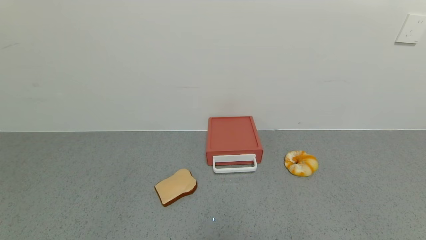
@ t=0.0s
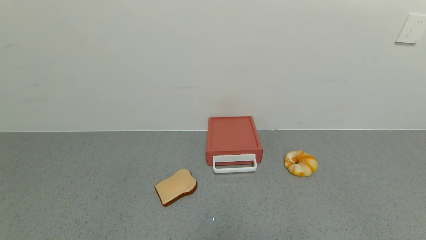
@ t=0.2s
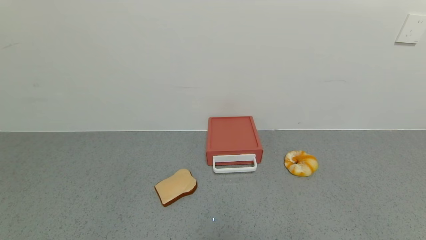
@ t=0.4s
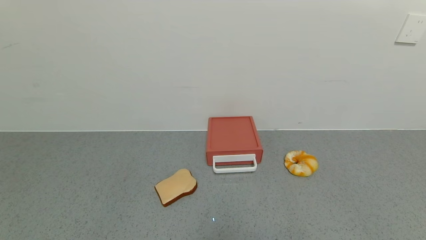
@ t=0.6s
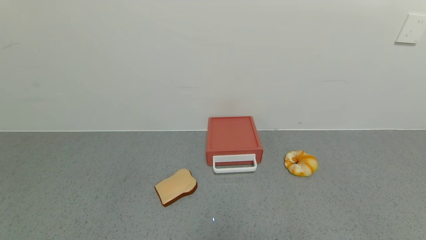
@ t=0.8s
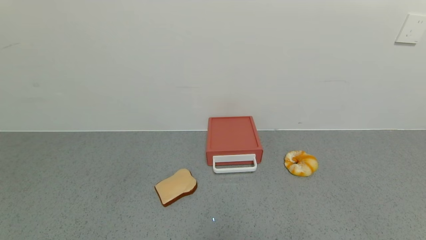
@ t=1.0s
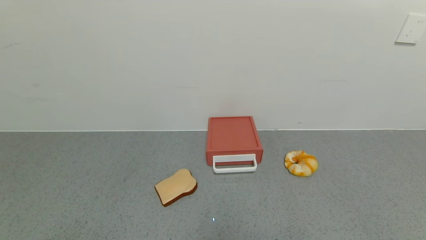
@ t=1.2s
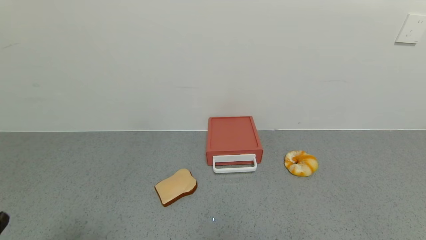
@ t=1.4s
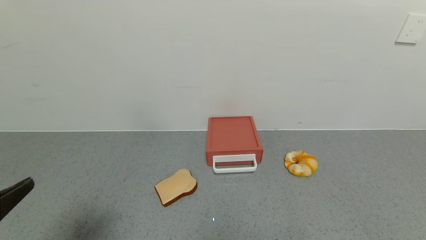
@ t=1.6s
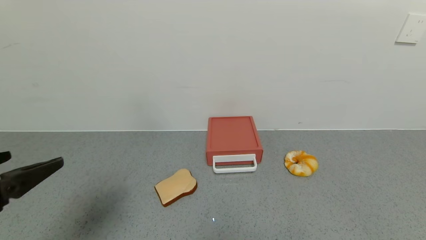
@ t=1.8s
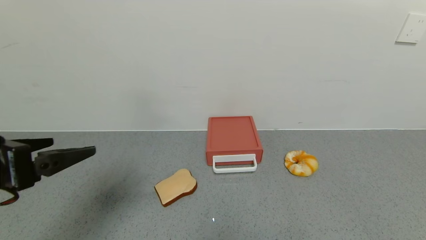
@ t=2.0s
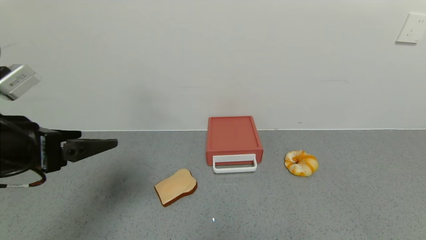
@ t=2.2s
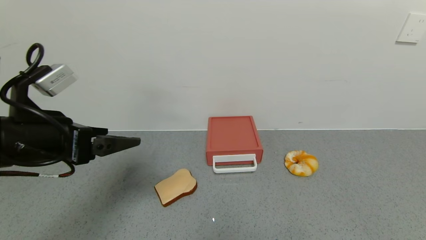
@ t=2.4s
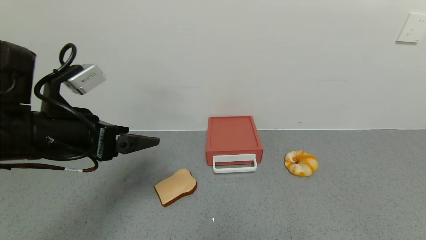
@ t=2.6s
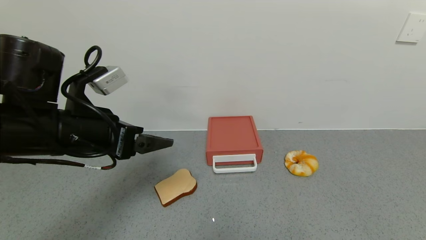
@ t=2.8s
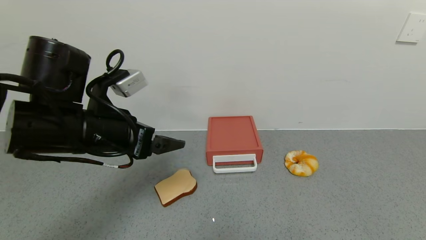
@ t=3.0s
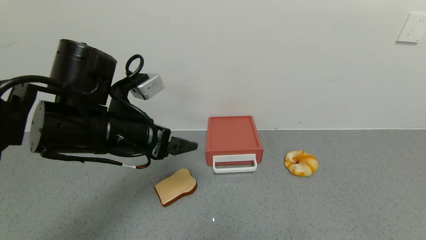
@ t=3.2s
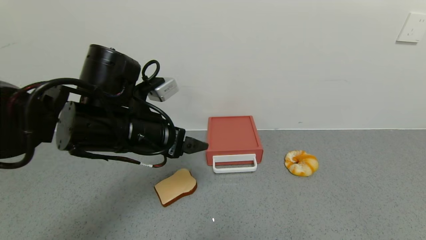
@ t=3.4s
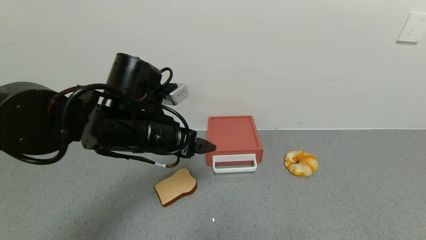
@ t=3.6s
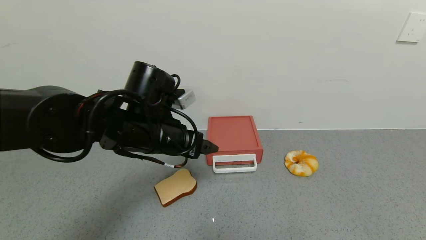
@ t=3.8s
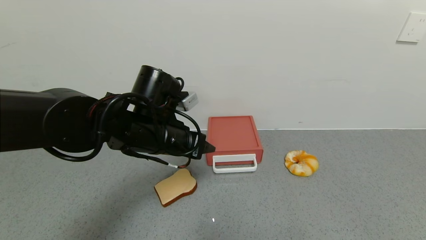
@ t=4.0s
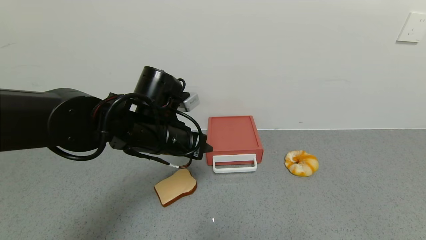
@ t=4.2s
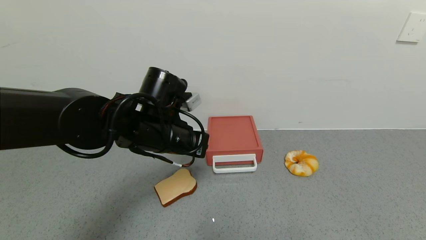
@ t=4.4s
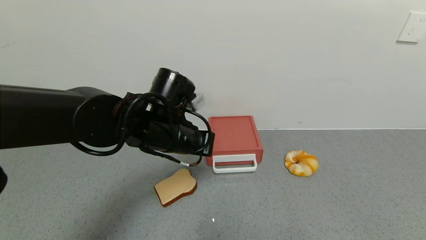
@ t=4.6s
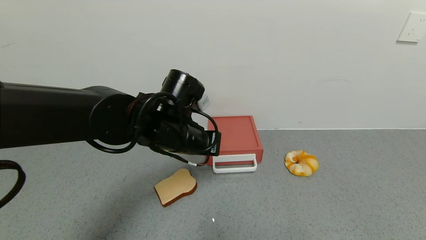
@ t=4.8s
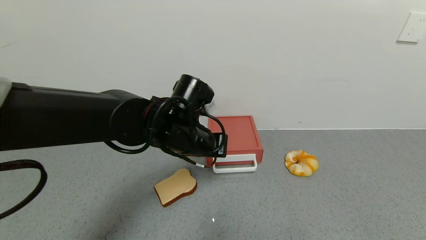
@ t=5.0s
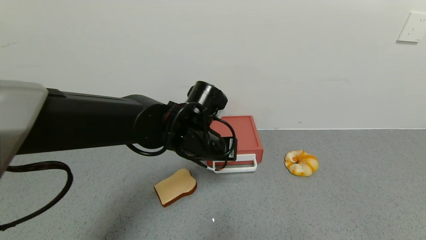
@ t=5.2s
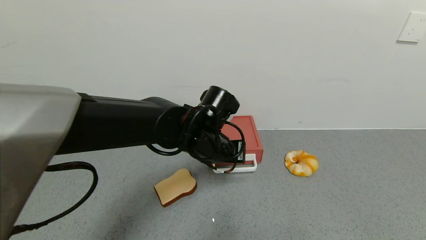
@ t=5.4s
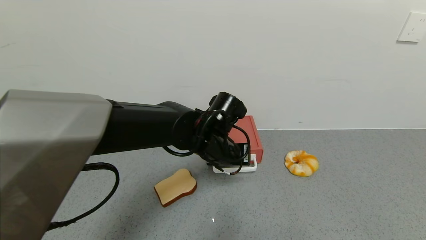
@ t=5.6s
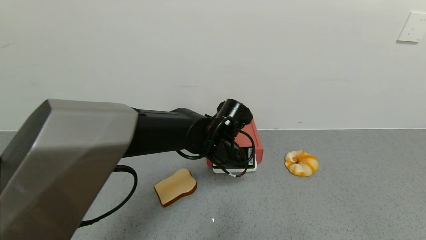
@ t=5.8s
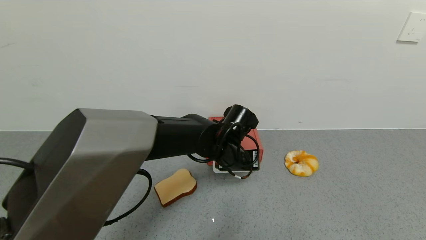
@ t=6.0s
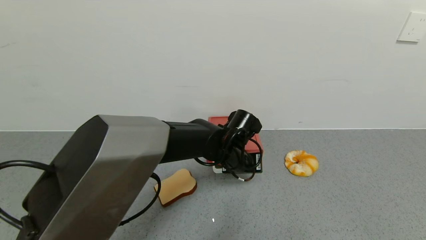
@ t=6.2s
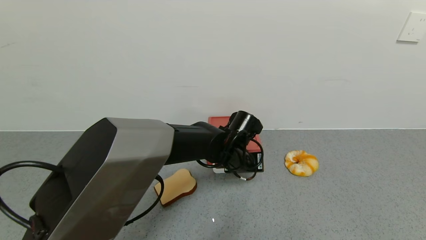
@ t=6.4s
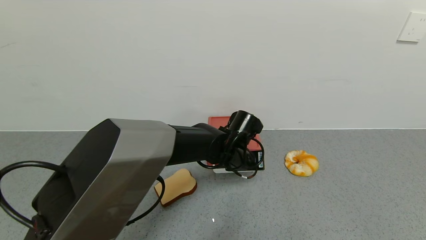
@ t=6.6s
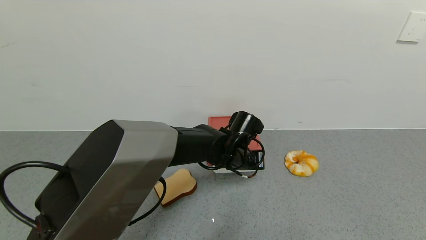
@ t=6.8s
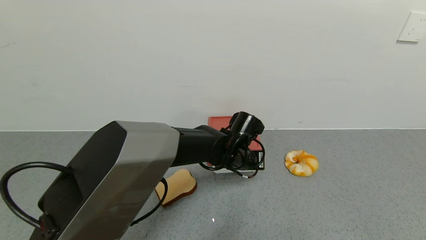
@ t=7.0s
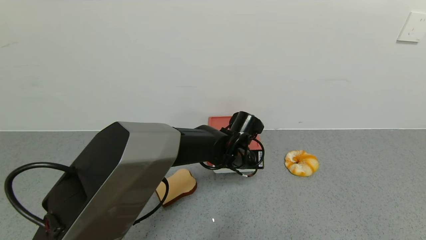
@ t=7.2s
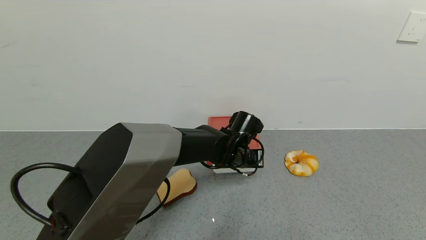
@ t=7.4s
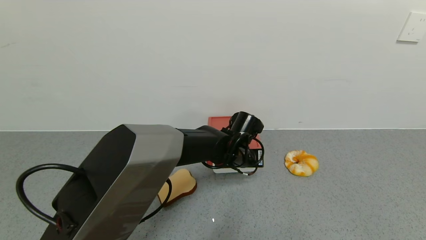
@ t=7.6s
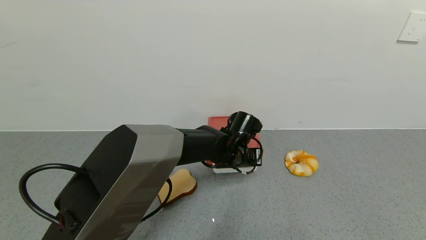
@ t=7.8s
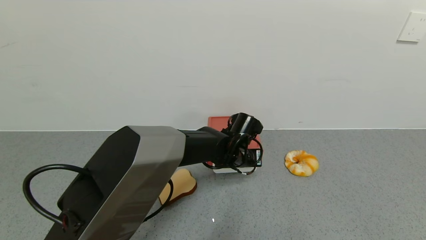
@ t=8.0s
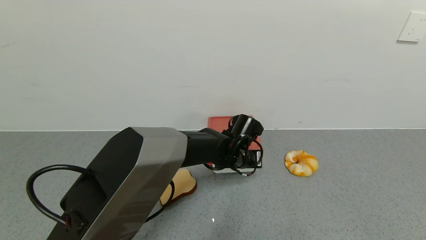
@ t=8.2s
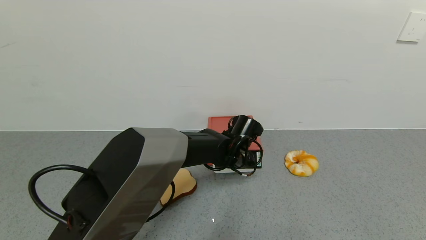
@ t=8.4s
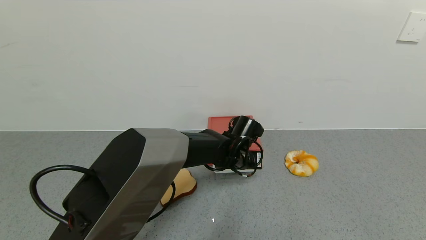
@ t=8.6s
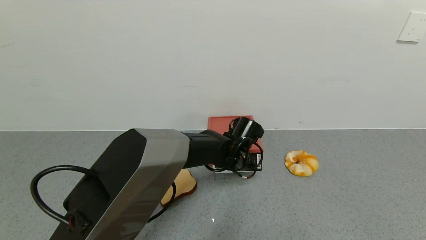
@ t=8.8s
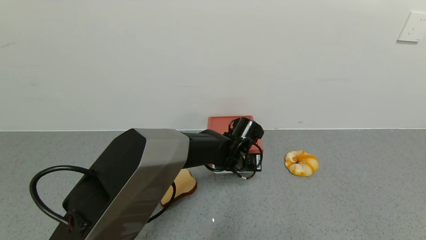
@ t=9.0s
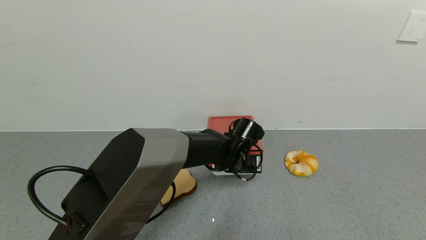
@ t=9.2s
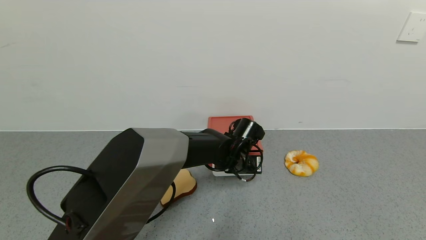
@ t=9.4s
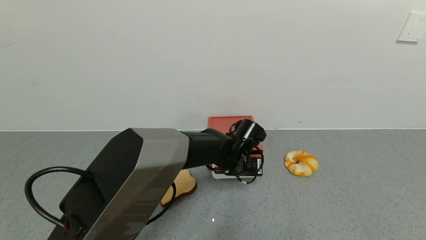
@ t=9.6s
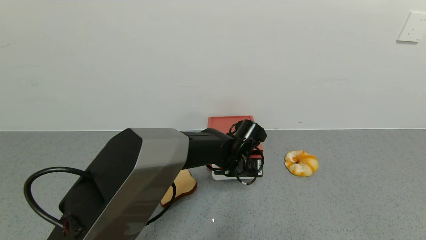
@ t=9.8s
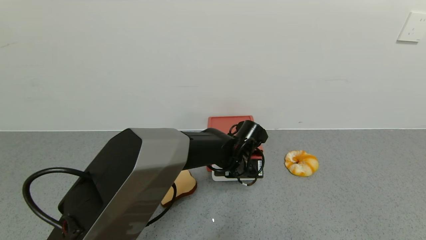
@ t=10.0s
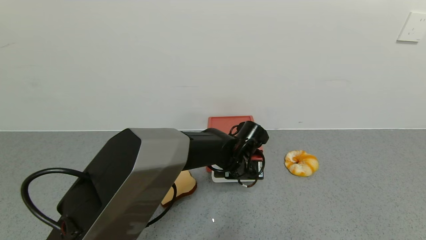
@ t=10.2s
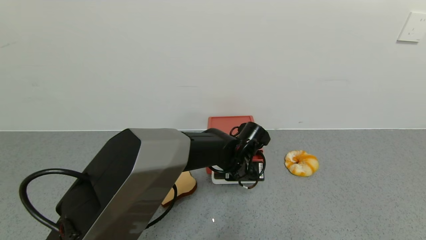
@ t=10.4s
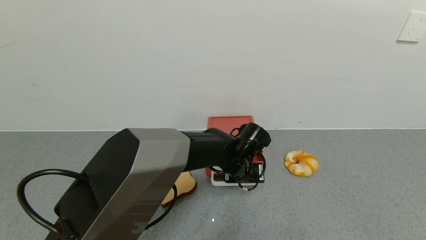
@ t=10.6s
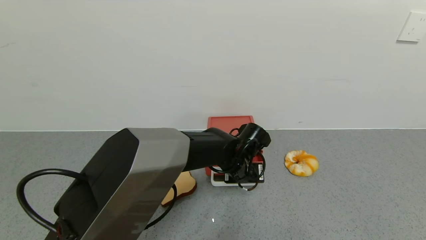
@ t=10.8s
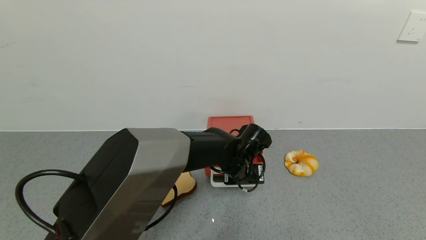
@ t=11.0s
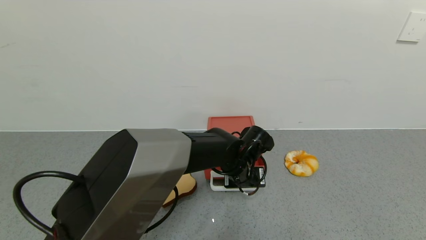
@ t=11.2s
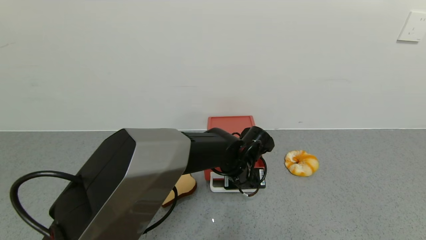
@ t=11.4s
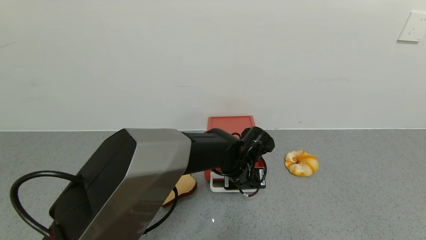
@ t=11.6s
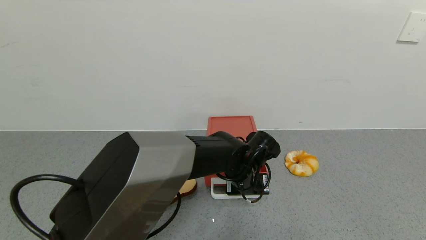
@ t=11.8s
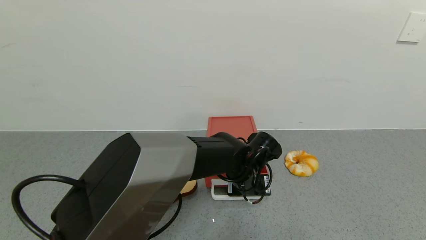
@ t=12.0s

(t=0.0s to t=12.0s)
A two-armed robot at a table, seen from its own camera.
Task of the whole recording: use the gripper to open the drawer and close the red drawer.
t=0.0s - t=1.6s: The left gripper travels upward and forward by some 20 cm.
t=1.6s - t=3.0s: The left gripper is displaced forward and to the right by some 20 cm.
t=3.0s - t=4.4s: The left gripper heads to the right and forward, covering roughly 10 cm, and closes up.
t=4.4s - t=6.0s: The left gripper moves to the right and downward, roughly 15 cm.
t=6.0s - t=10.4s: The grippers stay close to where they were, moving slightly.
t=10.4s - t=12.0s: The grippers stay close to where they were, moving slightly.

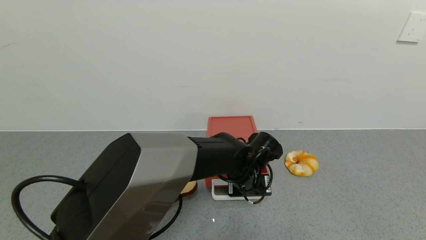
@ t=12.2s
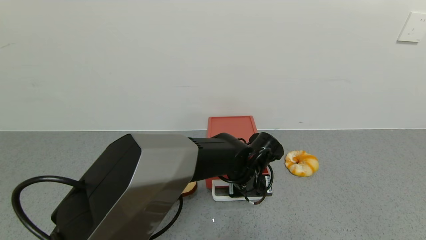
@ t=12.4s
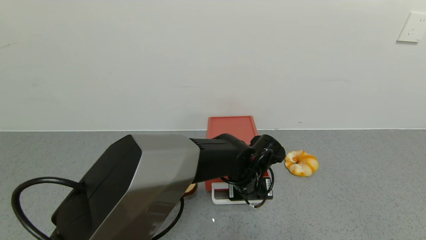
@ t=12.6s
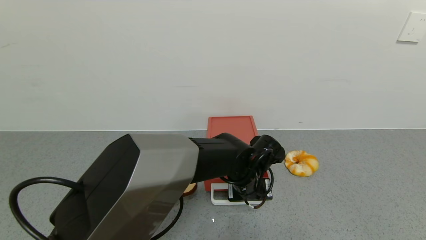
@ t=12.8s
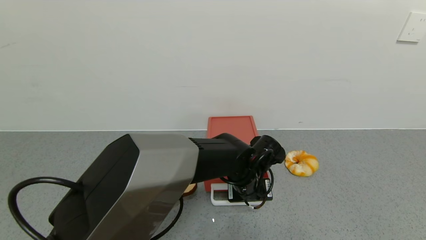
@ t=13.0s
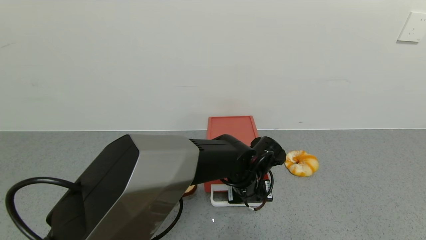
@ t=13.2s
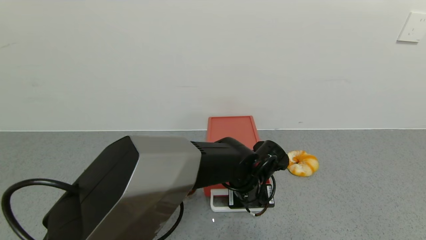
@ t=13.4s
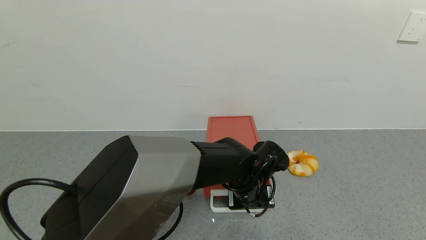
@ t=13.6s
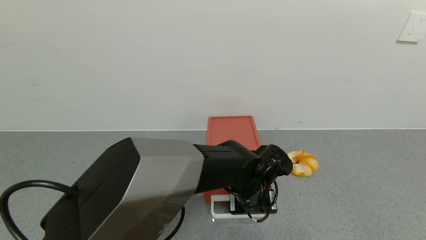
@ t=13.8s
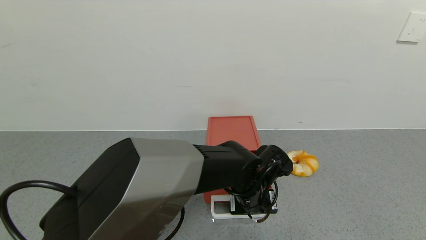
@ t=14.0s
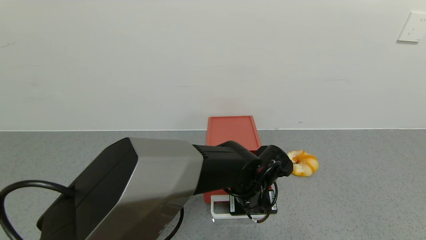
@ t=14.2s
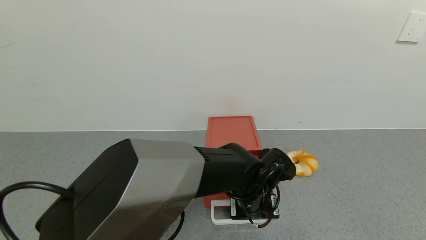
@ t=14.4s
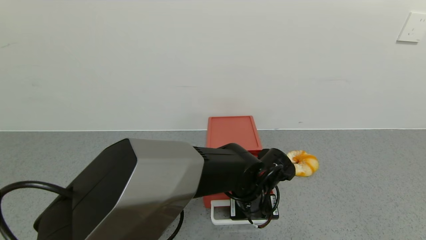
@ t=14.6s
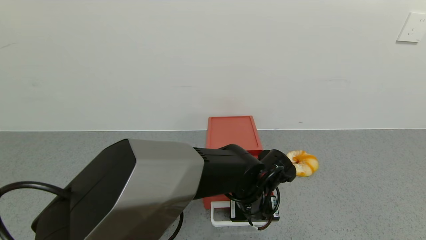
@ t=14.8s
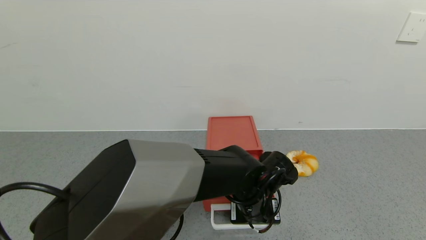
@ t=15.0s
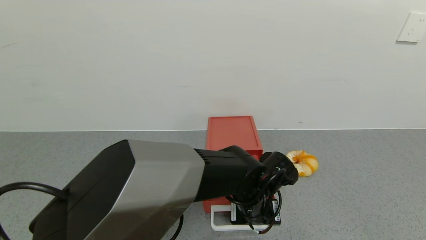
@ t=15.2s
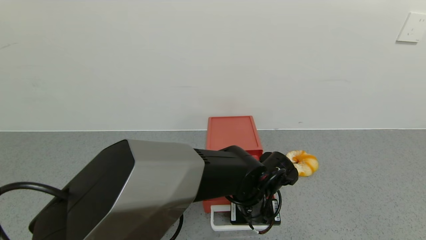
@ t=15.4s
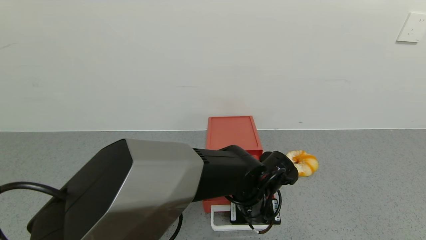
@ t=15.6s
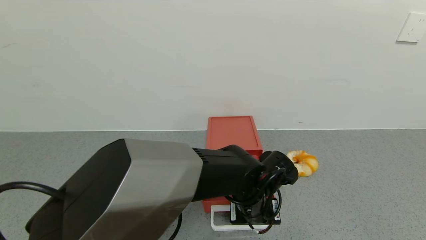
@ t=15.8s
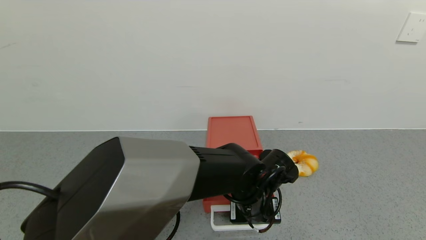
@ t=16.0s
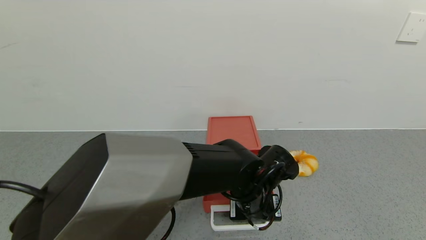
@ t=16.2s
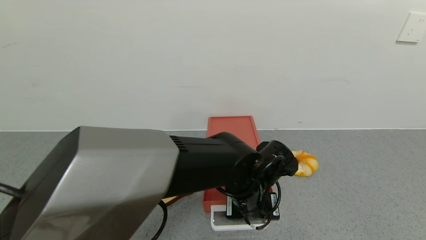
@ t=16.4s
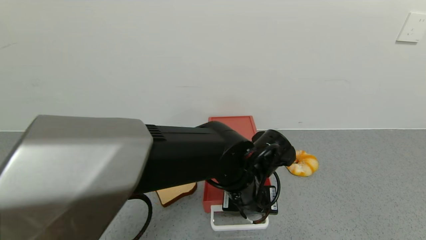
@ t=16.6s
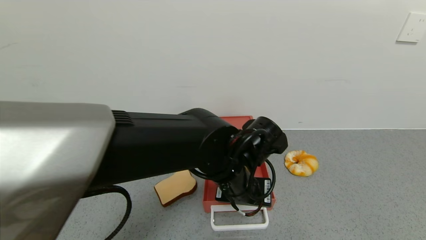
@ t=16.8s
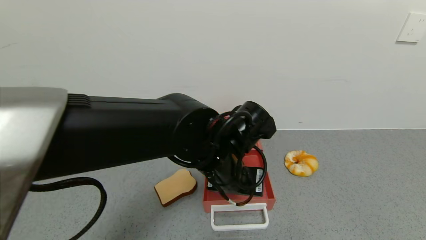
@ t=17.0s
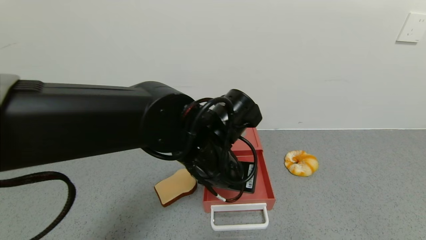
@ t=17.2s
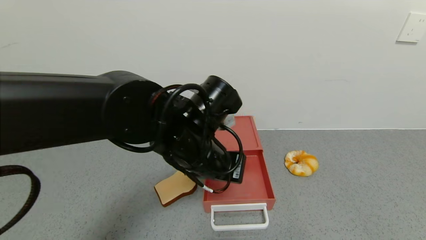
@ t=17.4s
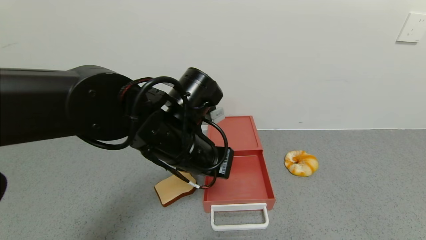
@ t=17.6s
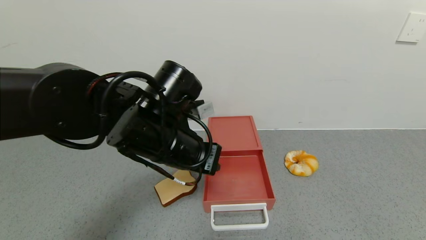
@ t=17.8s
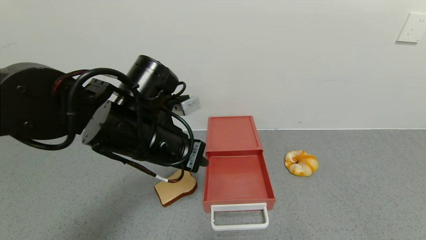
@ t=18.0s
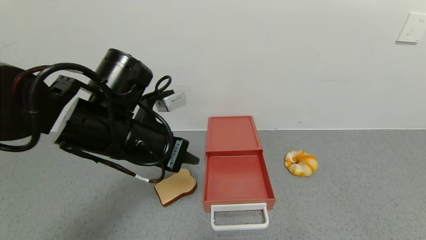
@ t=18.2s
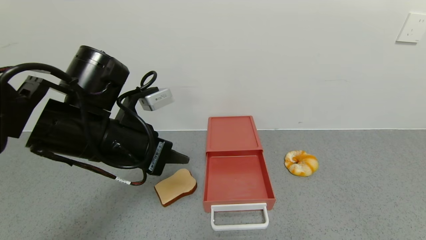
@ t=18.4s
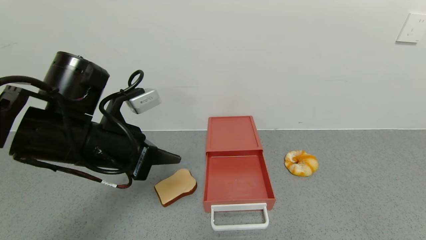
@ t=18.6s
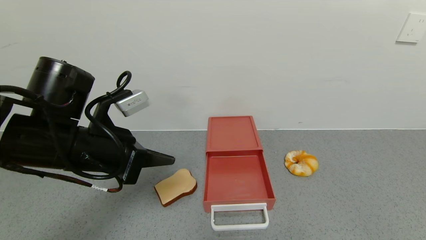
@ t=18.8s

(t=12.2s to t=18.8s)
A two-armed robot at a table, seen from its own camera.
Task of the whole recording: use the gripper to open the drawer and close the red drawer.
Step, t=12.2s - t=16.6s: Open the yellow drawer with left gripper.
t=12.2s - t=15.4s: The grippers make only small movements.
t=15.4s - t=17.2s: The left gripper heads upward and to the left, covering some 15 cm.
t=17.2s - t=18.8s: The left gripper goes approximately 20 cm to the left.
